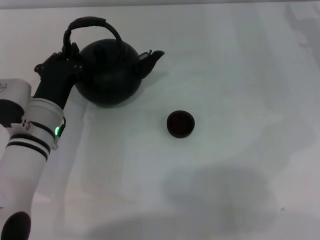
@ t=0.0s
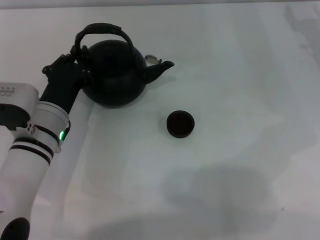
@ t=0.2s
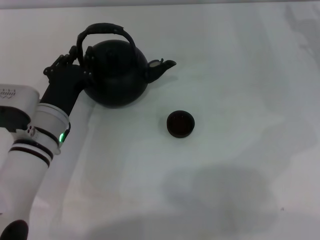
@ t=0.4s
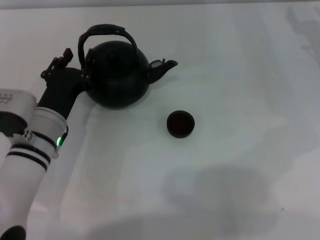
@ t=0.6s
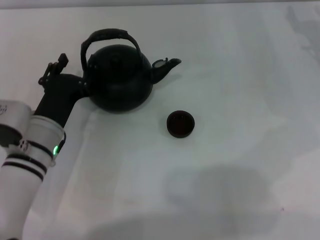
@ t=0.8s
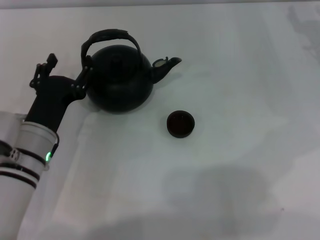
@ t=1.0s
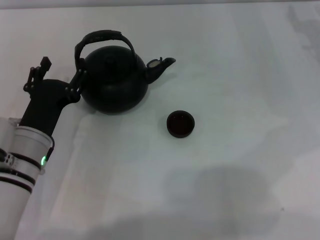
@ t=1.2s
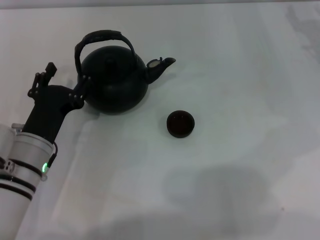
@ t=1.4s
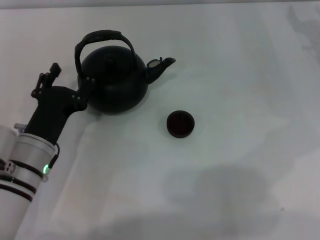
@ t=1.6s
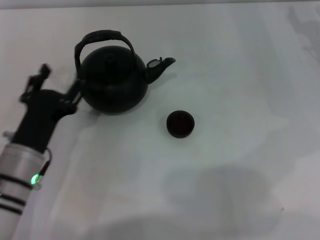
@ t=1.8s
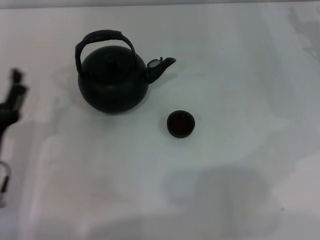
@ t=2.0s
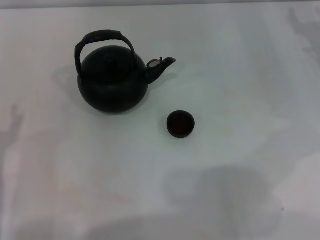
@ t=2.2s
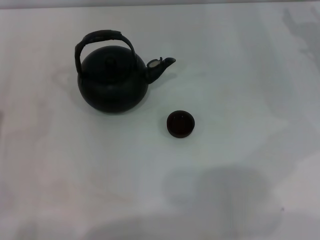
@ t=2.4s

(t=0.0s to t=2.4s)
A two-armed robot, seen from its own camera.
Task of the whole recording: Grasp the handle of the teapot with one hand and pour tea into the teacup.
t=0.0s - t=1.2s: The left gripper opens its fingers.
t=1.2s - t=2.4s: The left gripper travels to the left and backward by about 15 cm.
